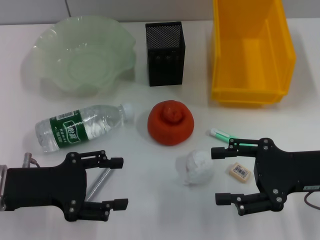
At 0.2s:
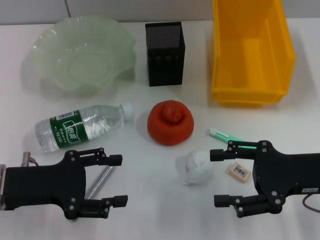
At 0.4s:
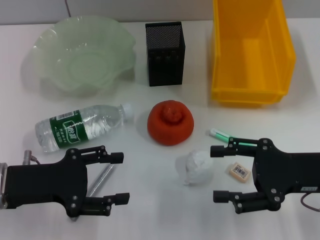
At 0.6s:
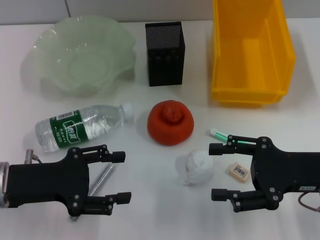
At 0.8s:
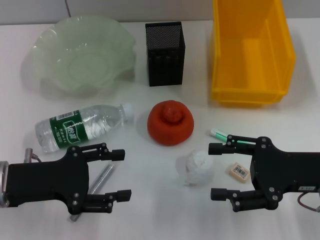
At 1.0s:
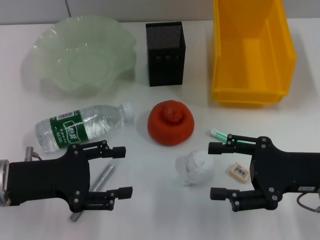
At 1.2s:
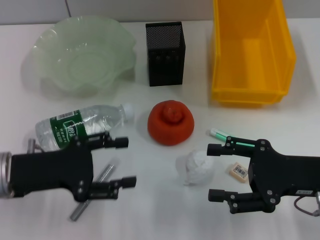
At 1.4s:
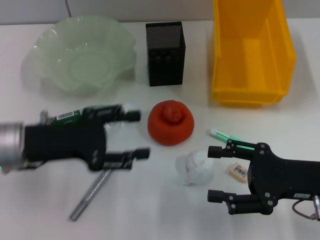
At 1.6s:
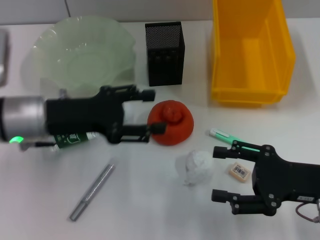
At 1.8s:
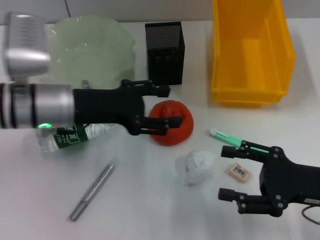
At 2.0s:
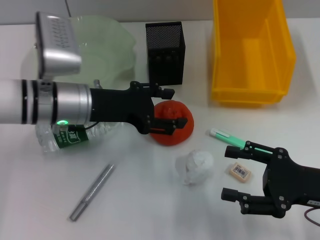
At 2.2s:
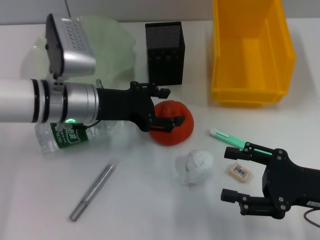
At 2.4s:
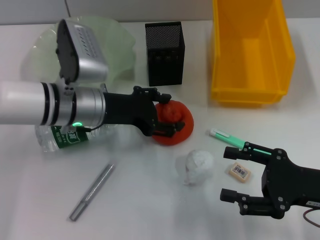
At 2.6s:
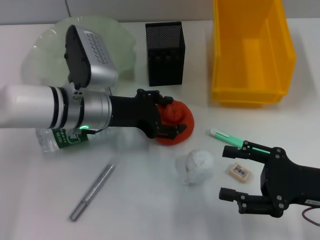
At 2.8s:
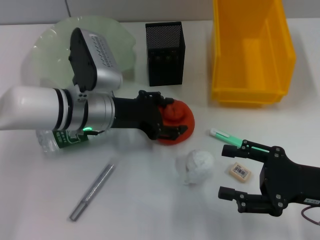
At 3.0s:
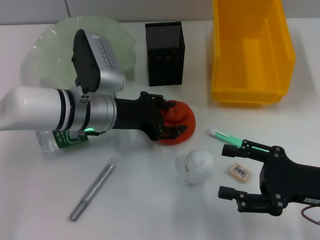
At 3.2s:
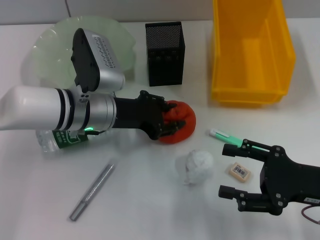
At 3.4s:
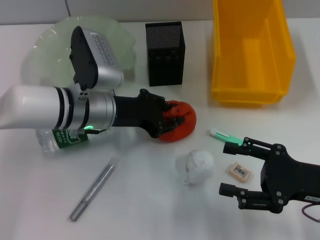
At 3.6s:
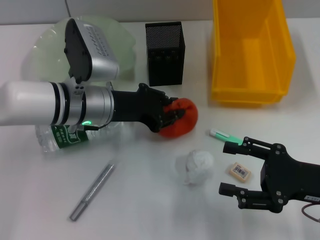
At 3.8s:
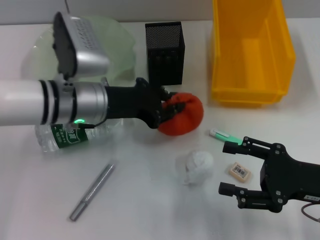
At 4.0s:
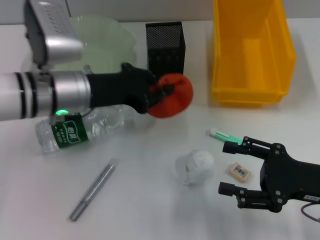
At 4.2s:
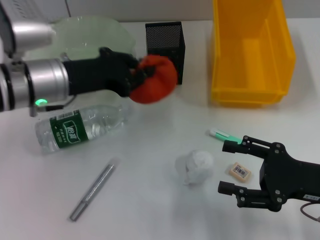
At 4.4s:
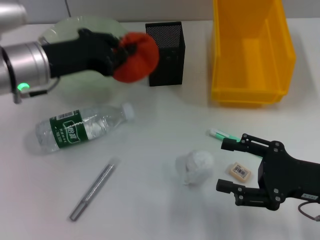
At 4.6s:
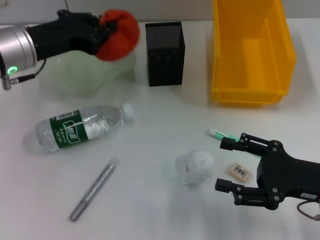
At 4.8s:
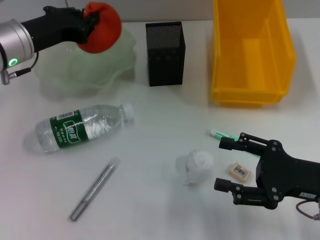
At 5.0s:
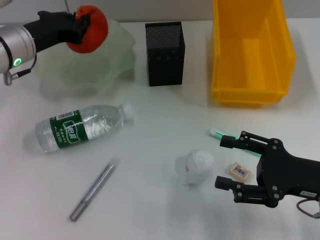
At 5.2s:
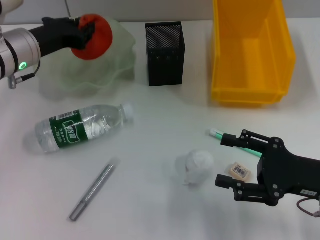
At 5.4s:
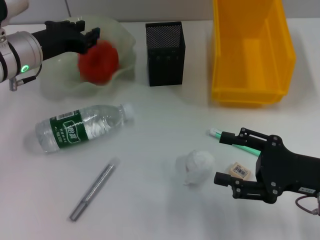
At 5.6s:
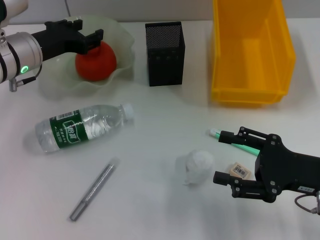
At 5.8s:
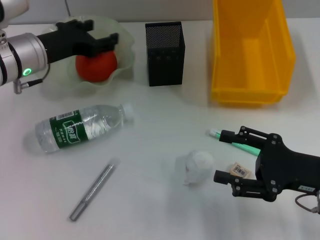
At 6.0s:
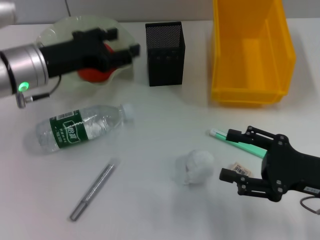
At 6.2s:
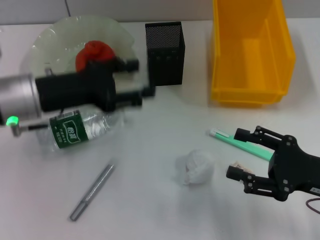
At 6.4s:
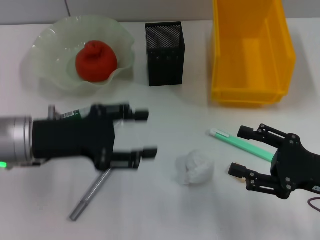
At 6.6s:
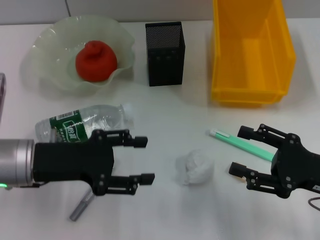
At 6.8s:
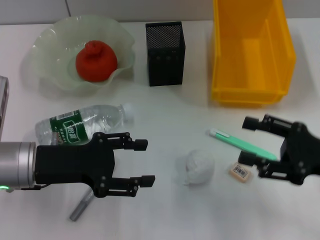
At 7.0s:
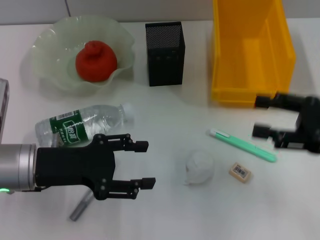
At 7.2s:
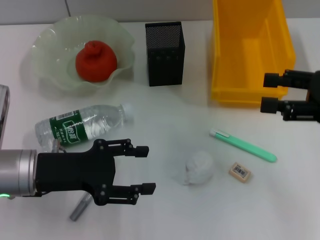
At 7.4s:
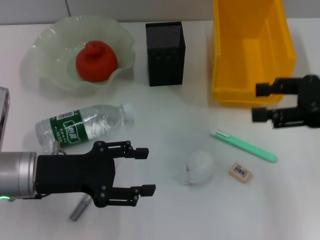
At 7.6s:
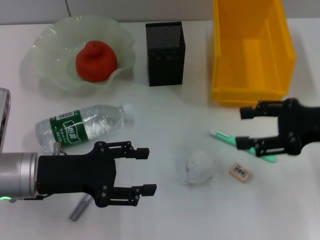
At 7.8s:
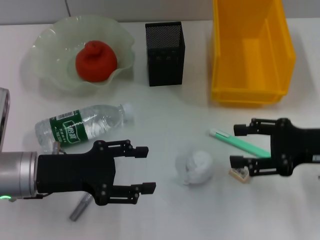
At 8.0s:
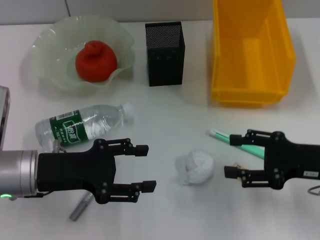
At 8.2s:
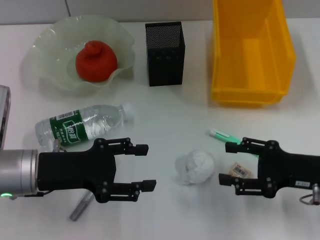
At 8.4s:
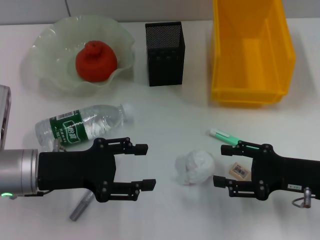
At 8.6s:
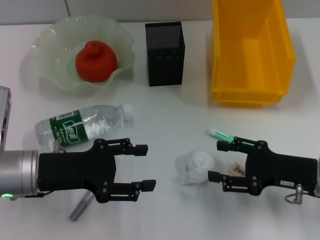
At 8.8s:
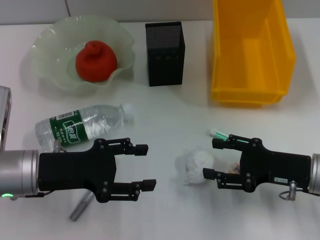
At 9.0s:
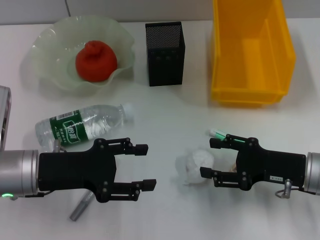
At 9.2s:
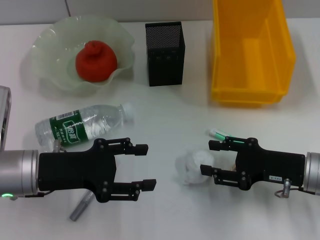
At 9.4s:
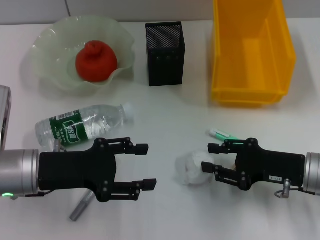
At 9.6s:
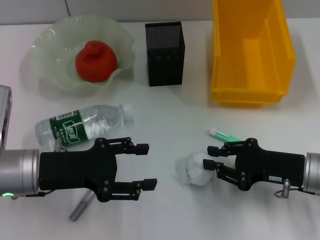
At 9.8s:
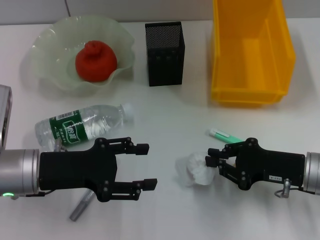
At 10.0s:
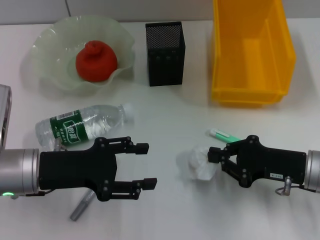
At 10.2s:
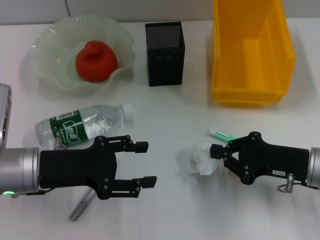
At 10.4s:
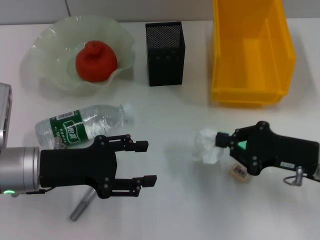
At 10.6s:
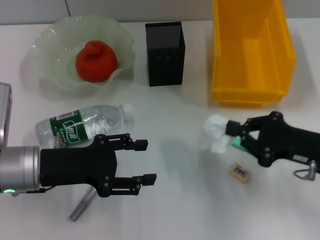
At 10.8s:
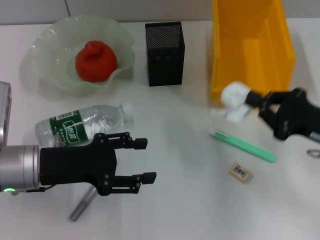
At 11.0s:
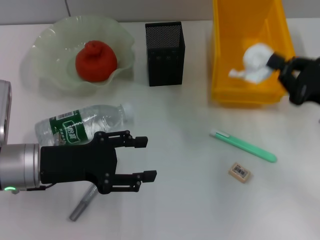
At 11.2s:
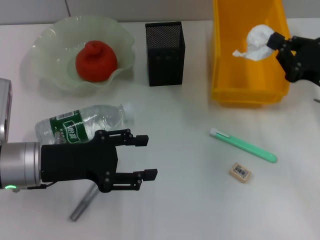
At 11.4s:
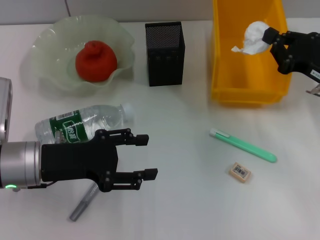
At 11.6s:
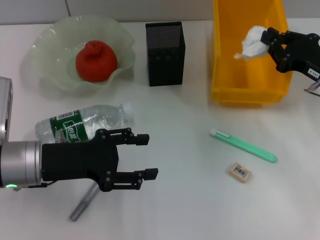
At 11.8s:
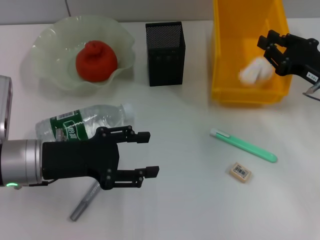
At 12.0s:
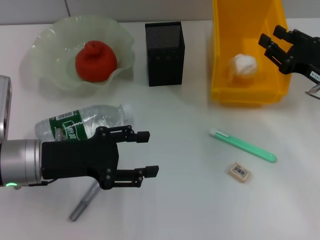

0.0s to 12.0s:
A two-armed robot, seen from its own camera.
Step, 0.0s to 3.2s: Grab the orange with the left hand.
Step, 3.4s to 5.6s: Place the orange into the fruit bowl with the left hand.
Step, 5.8s to 9.8s: Grab the paper ball with the right hand.
Step, 10.0s to 12.0s: Place the paper ball into the trash can with the right hand.
0.0s to 1.6s: The left gripper heads forward, covering roughly 5 cm.
1.6s to 3.0s: The left gripper goes roughly 10 cm to the right.
3.0s to 4.4s: The left gripper travels to the left and upward by some 10 cm, and closes its fingers.
4.4s to 6.0s: The left gripper opens up.
6.0s to 7.6s: The left gripper heads backward and downward, covering roughly 10 cm. Meanwhile the right gripper moves upward and forward, approximately 10 cm.
7.6s to 9.0s: The right gripper travels downward by about 10 cm.
9.0s to 10.4s: The right gripper closes up.
10.4s to 12.0s: The right gripper travels forward by roughly 5 cm.

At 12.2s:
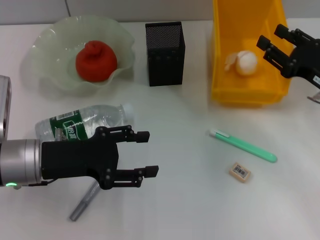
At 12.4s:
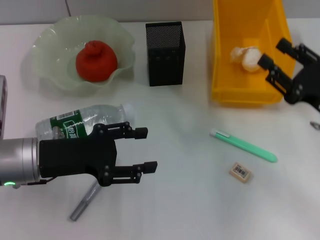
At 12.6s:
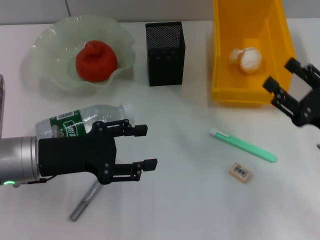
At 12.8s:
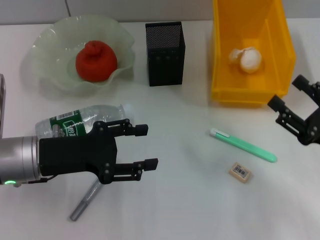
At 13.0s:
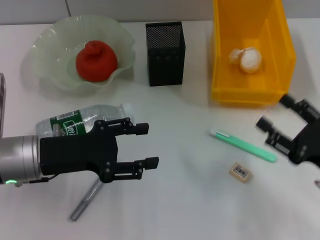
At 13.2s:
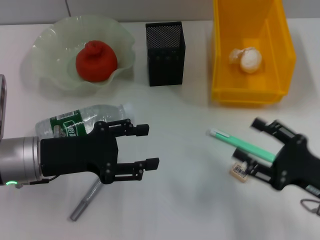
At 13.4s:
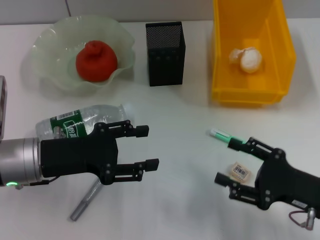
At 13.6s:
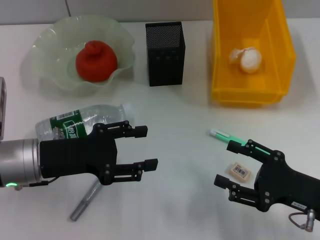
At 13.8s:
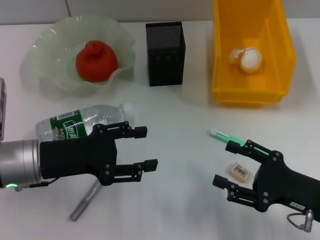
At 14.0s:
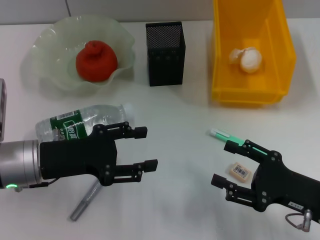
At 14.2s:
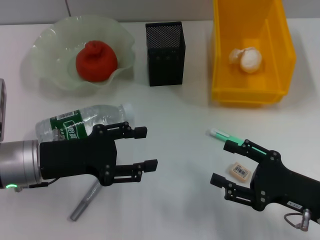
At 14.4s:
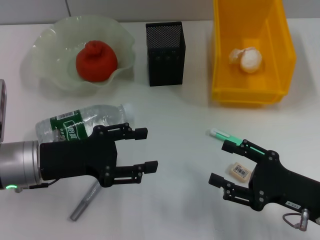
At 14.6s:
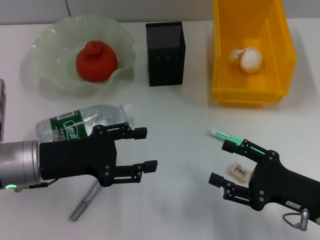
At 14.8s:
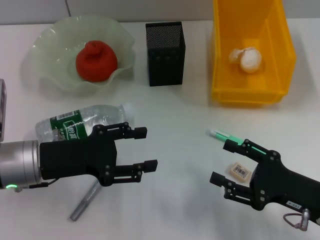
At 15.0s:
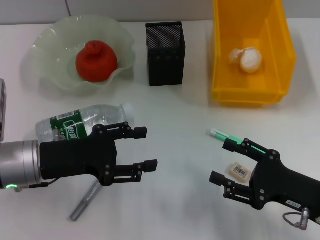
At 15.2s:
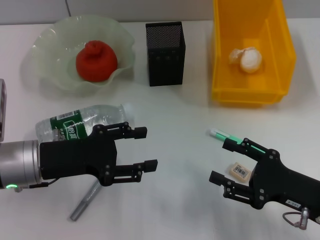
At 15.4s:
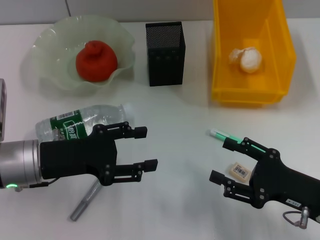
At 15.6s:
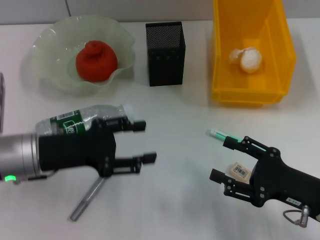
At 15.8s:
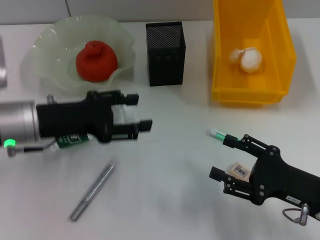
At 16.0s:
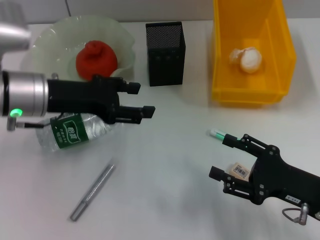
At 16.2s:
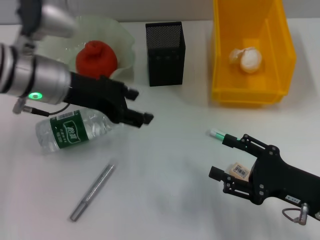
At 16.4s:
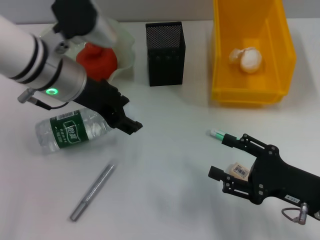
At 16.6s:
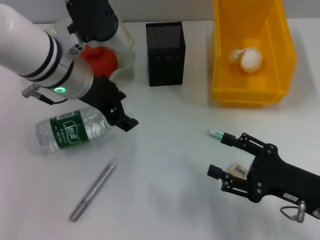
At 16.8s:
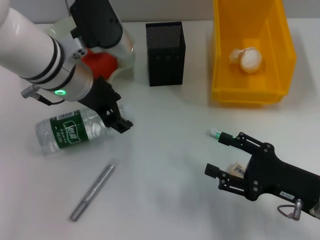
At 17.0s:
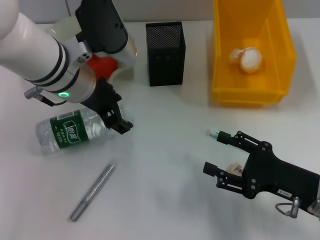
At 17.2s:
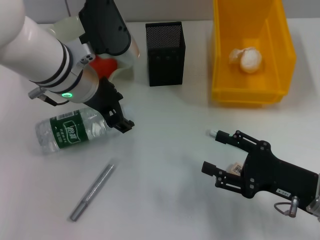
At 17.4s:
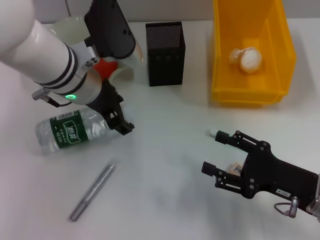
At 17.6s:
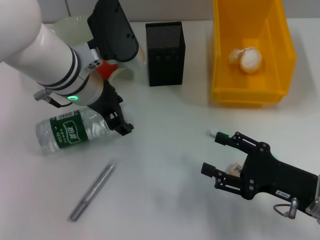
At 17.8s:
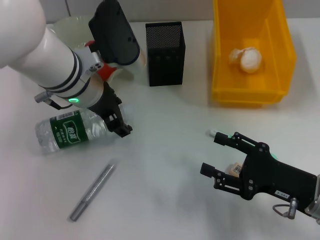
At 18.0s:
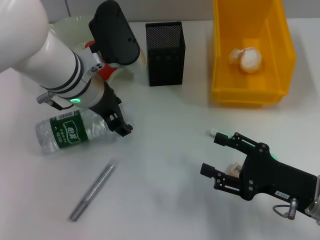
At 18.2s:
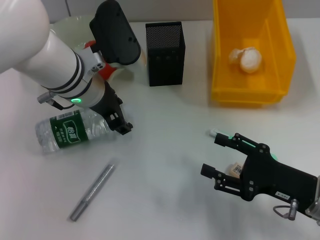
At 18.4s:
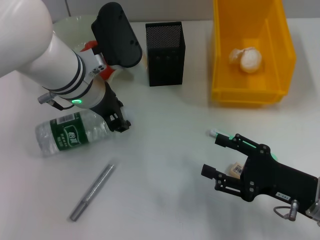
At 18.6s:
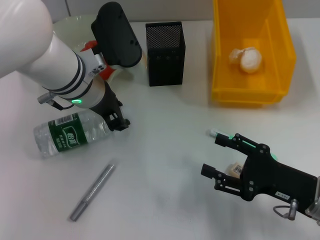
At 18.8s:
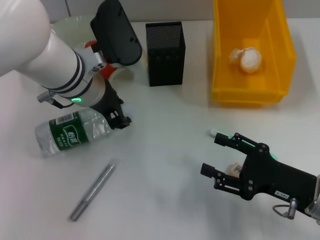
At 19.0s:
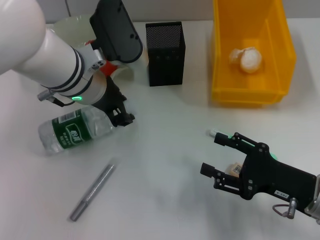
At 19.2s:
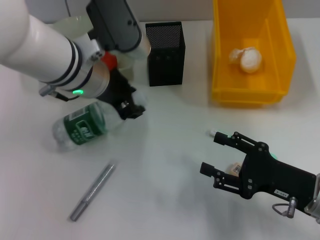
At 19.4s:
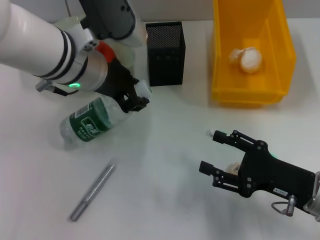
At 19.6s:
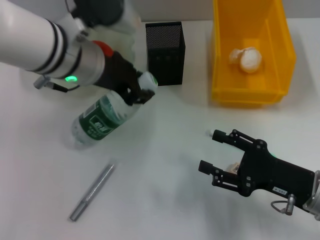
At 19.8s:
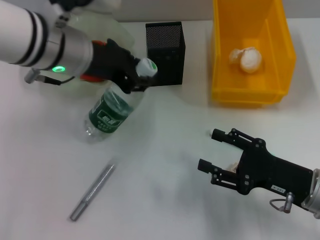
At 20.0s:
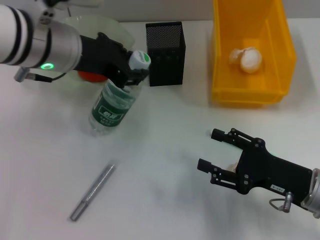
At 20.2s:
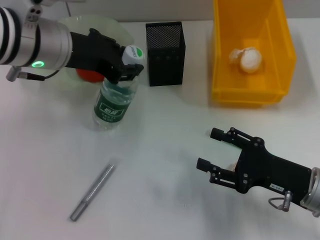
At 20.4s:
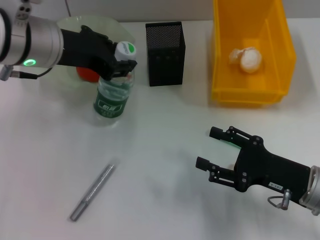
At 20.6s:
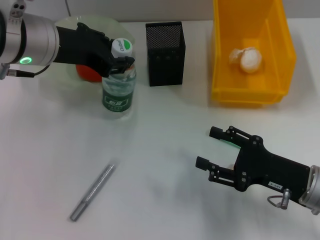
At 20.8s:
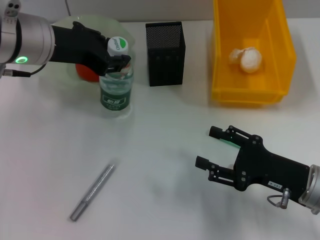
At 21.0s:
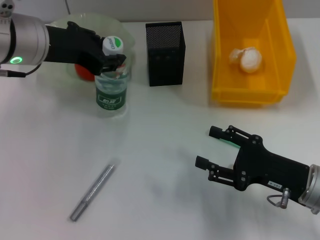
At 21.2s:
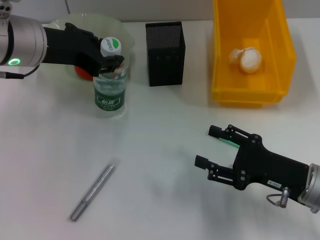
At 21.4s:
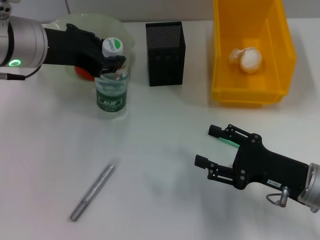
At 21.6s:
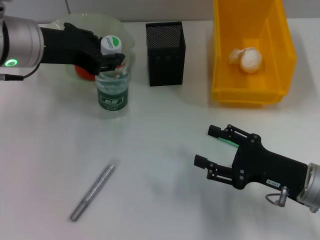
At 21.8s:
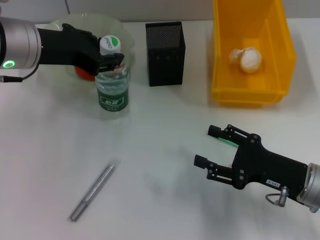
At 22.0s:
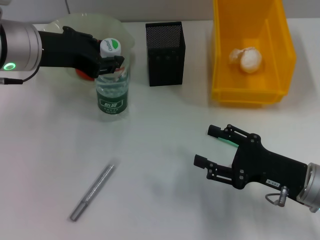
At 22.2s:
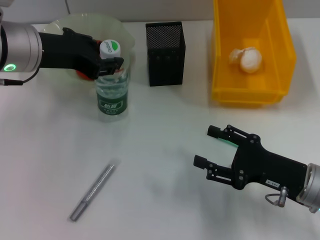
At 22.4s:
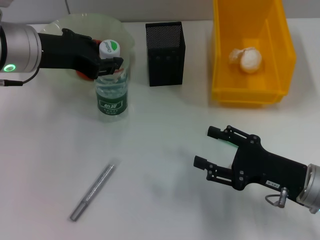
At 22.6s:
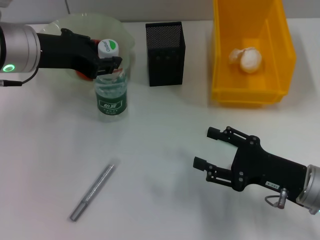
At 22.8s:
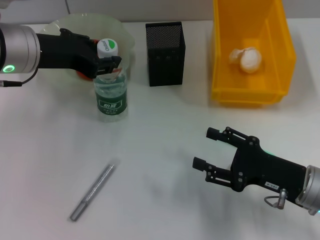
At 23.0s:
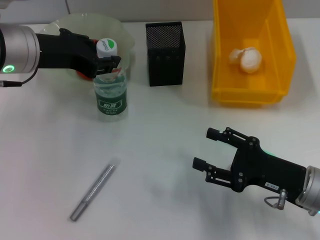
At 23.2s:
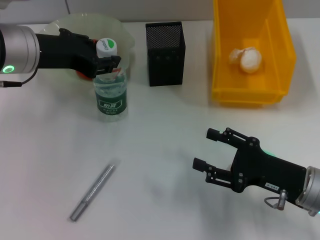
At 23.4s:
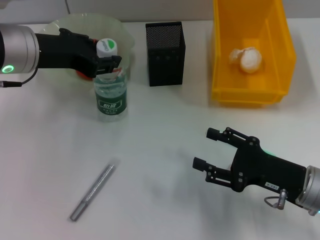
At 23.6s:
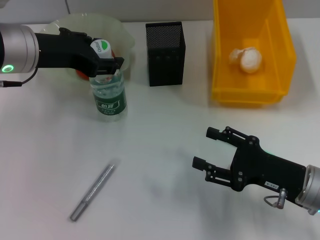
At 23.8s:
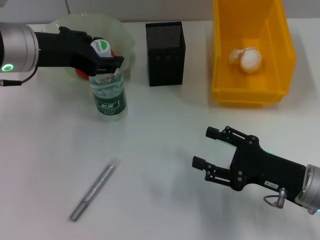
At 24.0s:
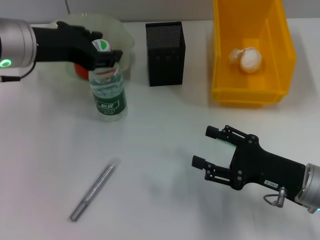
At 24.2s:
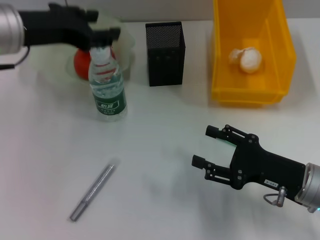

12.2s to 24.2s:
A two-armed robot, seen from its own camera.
Step, 12.2s to 18.4s: Grab the water bottle with the left hand.
Step, 18.8s to 24.0s: Place the water bottle on the table with the left hand.
12.2s to 13.8s: The right gripper heads backward and downward, covering approximately 15 cm, and opens.
13.8s to 15.2s: Neither gripper changes place.
15.2s to 16.6s: The left gripper moves forward, upward and to the right, approximately 15 cm.
16.6s to 18.2s: The grippers stay close to where they were, moving slightly.
18.2s to 19.8s: The left gripper goes approximately 5 cm upward, and closes up.
19.8s to 21.2s: The left gripper is displaced to the left by approximately 5 cm.
21.2s to 24.2s: The grippers stay close to where they were, moving slightly.
